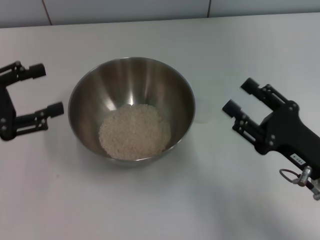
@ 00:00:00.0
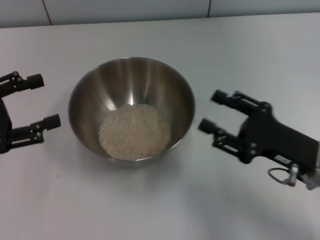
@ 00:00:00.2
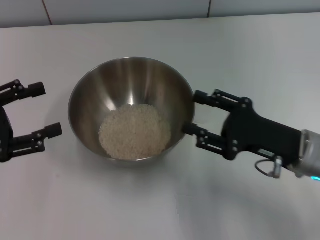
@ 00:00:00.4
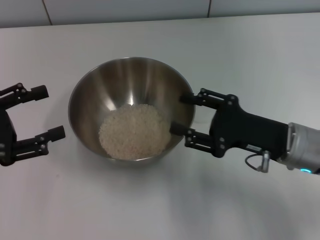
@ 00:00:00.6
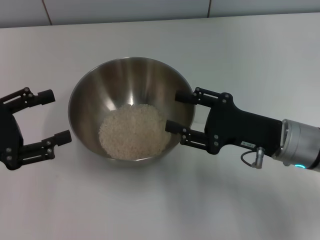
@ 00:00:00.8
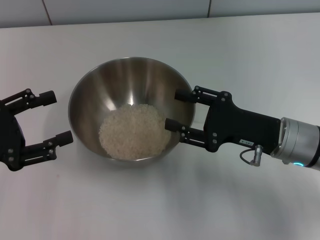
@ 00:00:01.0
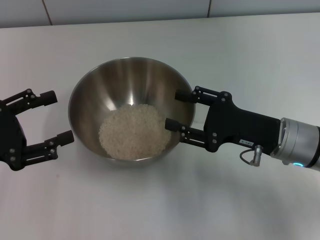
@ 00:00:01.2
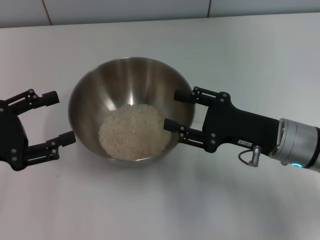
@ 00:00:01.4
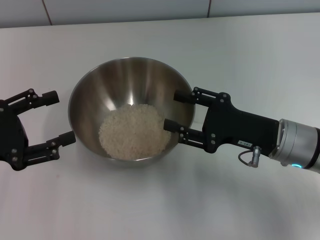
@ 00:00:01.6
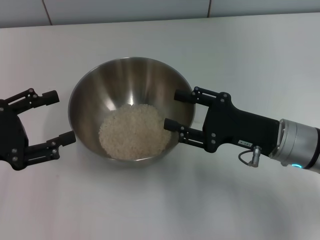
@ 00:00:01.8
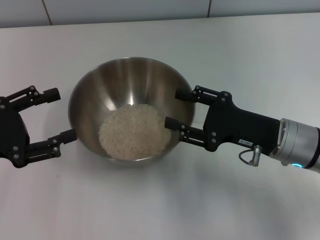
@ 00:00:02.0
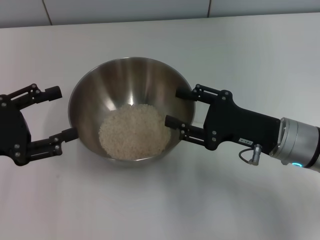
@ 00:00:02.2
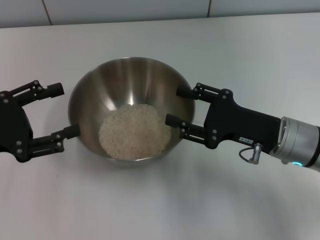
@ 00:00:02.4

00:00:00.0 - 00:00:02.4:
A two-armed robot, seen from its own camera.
Task of the whole recording: Place the bowl in the middle of the table with one hand and pour the rice from the grain cup into it with the other hand.
00:00:00.0 - 00:00:01.2: The right gripper shifts approximately 5 cm forward.
00:00:01.2 - 00:00:02.4: Both grippers stay put.
